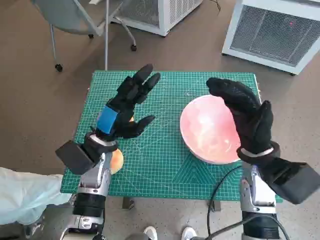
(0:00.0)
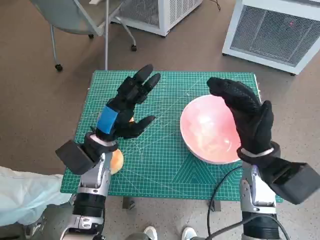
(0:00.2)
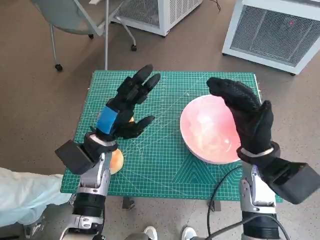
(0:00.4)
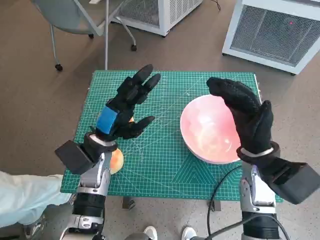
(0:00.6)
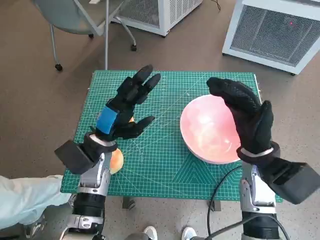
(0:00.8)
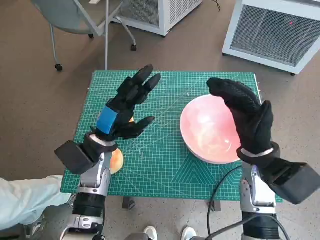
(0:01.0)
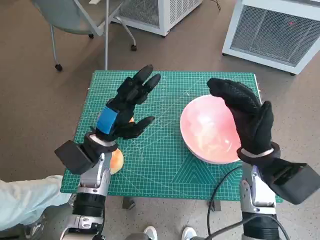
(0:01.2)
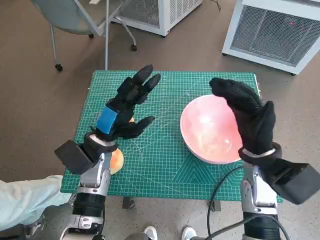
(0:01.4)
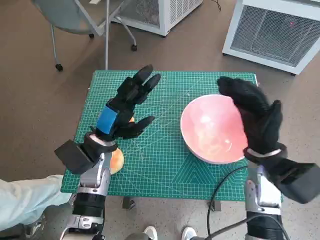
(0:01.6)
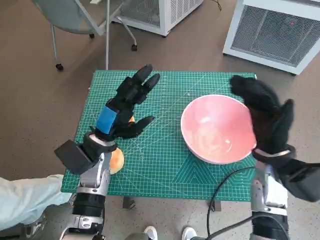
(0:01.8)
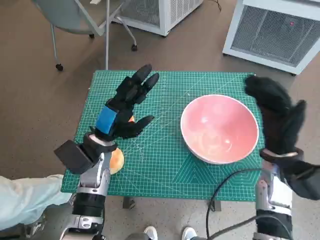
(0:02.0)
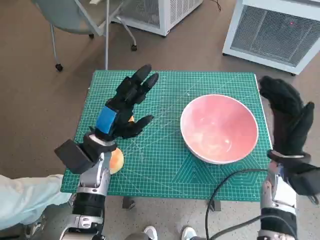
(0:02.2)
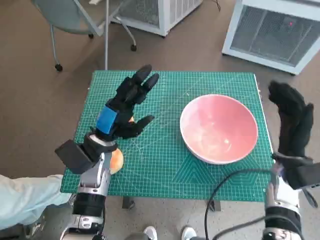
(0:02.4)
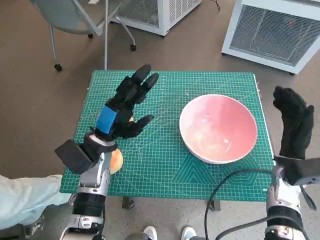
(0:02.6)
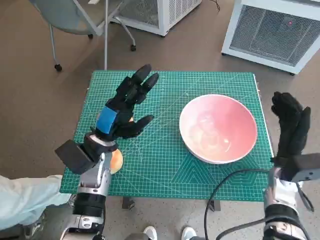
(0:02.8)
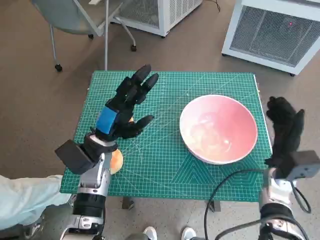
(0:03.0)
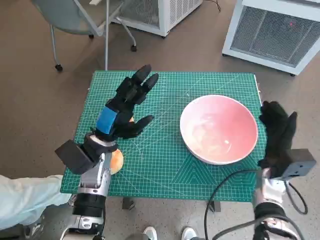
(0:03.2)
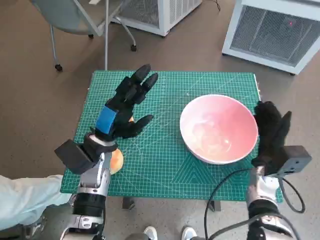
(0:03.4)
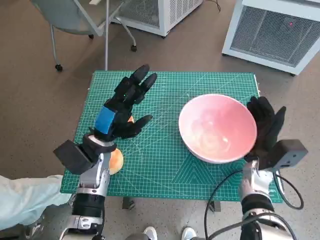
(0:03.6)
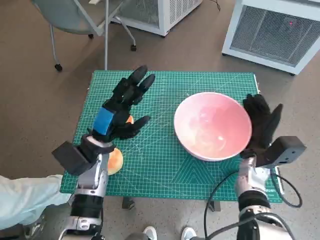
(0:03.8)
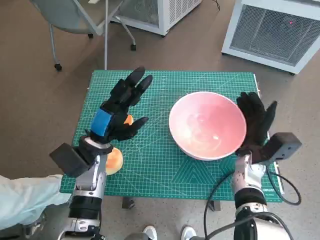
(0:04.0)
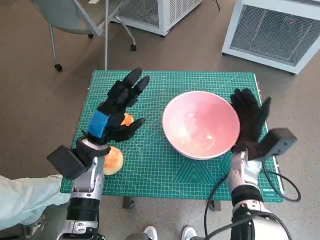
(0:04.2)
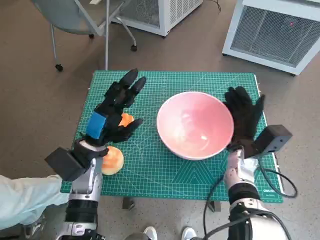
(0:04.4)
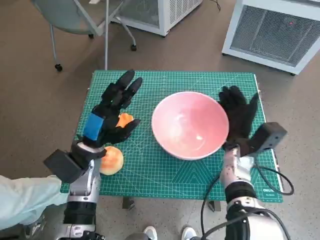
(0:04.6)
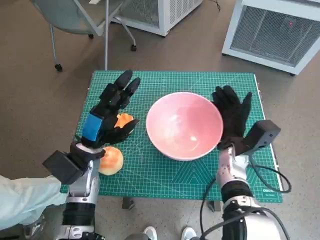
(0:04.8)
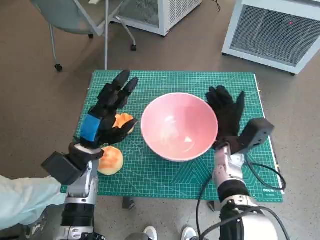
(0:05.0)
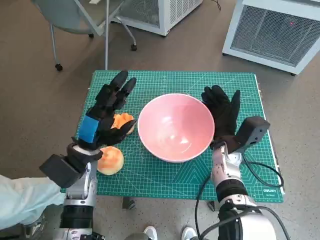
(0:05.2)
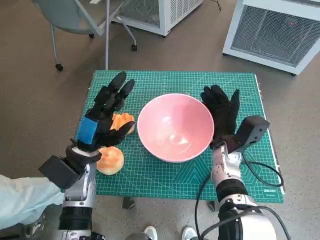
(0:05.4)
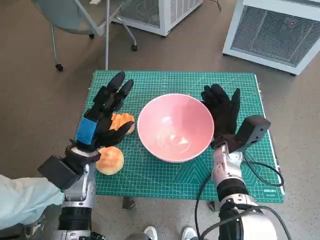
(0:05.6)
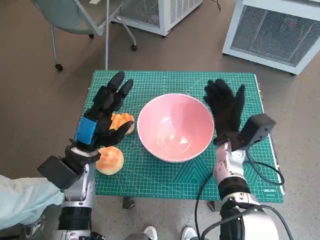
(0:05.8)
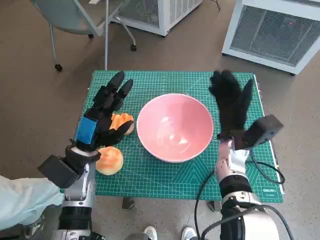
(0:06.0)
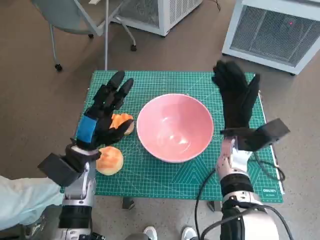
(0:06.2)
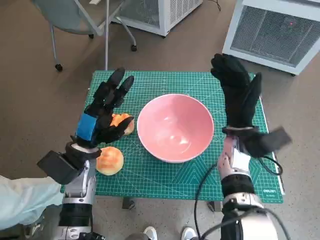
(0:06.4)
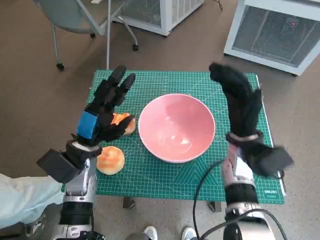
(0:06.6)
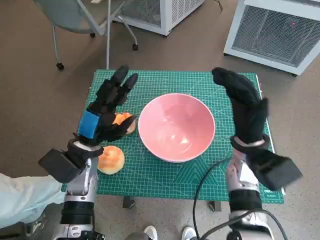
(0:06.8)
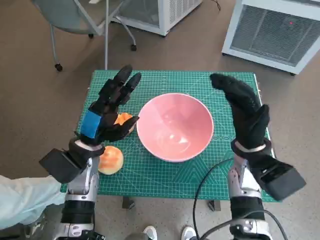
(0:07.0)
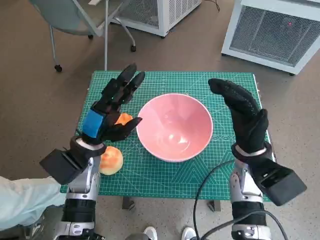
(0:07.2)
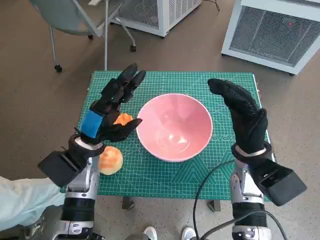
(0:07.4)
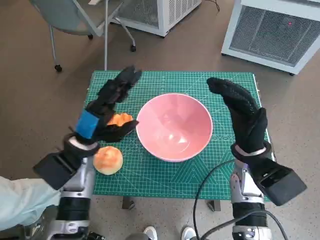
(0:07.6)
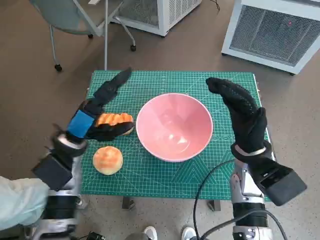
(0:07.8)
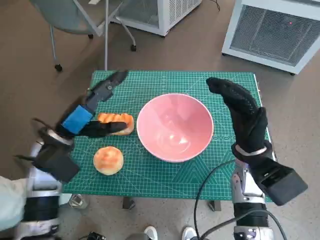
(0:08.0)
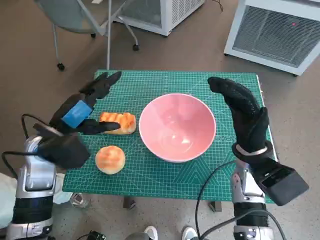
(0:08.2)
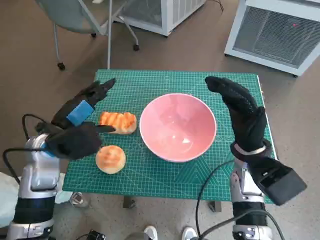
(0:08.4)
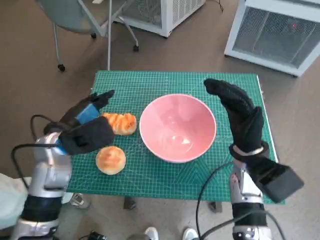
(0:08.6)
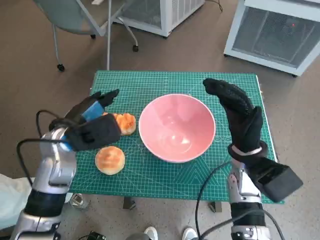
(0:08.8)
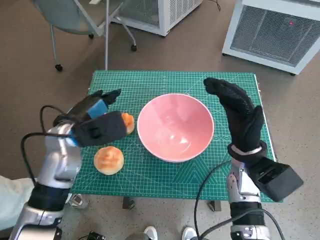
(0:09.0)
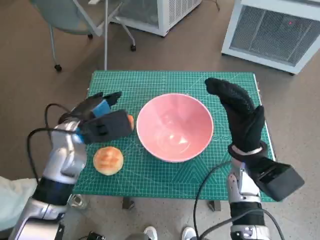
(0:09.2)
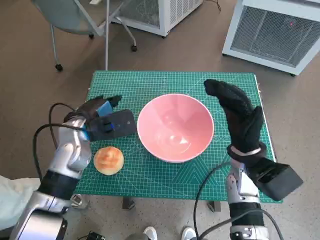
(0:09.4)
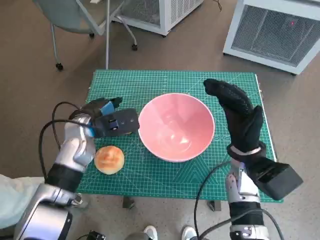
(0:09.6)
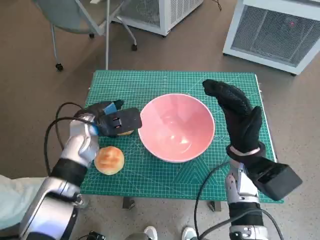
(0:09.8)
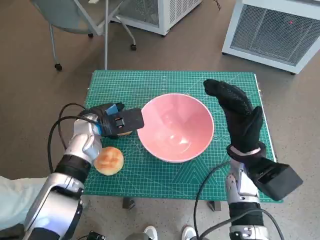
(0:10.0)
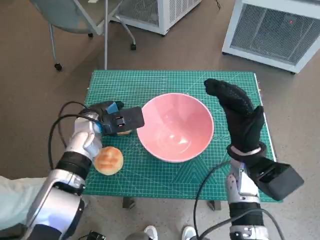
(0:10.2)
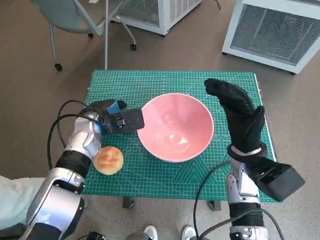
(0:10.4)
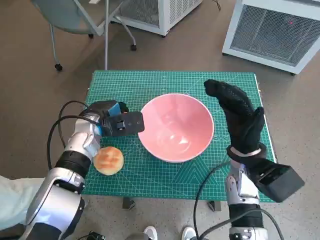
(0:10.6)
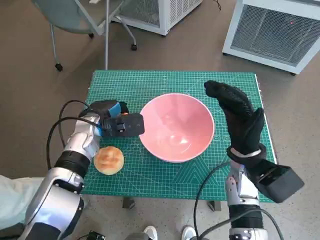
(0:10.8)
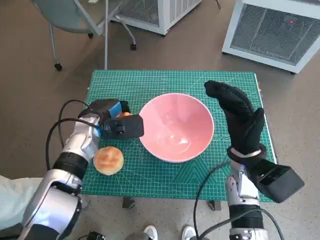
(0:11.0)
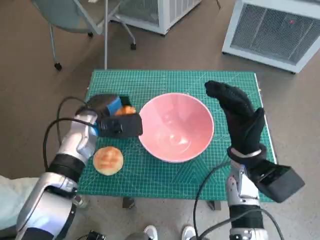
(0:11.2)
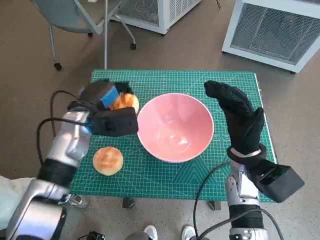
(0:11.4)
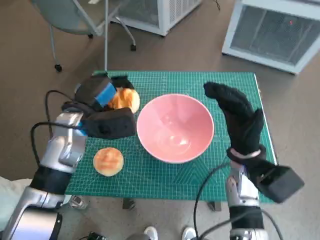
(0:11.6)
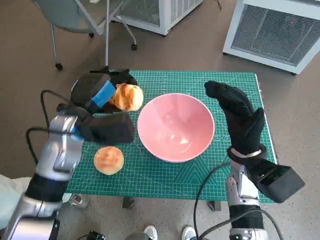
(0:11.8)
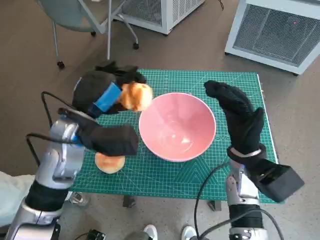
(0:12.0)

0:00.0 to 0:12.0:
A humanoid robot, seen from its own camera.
Task of the whole recording: Push the bowl into the center of the table and put the bread into the bowl.
Step, 0:00.0 to 0:05.8: Move the pink bowl to the center of table with right hand.
Step, 0:06.0 to 0:10.8: Grasp the long bread with left hand.
0:01.6 to 0:03.0: The right hand is displaced downward and to the right by roughly 10 cm.
0:03.0 to 0:04.4: The right hand moves to the left, about 5 cm.
0:06.0 to 0:07.6: The right hand moves roughly 5 cm.
0:09.0 to 0:10.4: The left hand is displaced forward by some 5 cm.
0:10.4 to 0:12.0: The left hand heads upward and backward, covering roughly 10 cm.

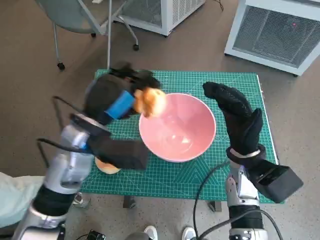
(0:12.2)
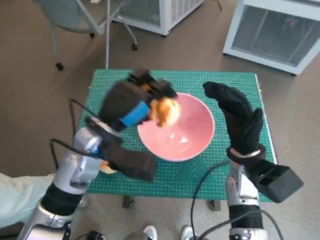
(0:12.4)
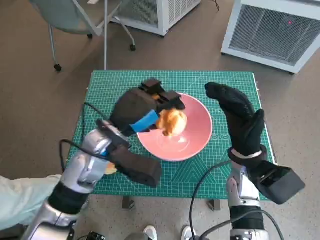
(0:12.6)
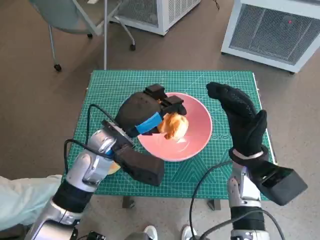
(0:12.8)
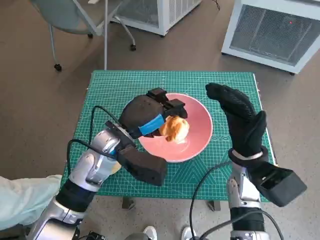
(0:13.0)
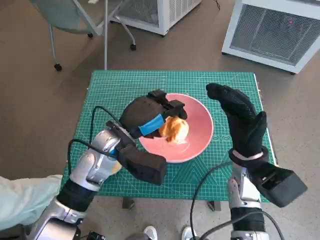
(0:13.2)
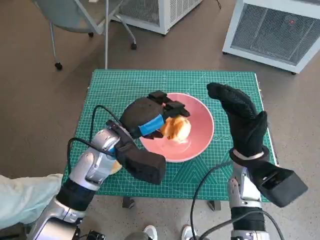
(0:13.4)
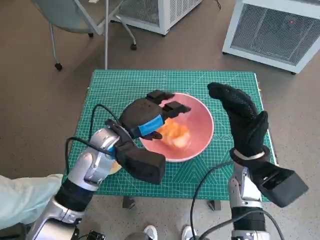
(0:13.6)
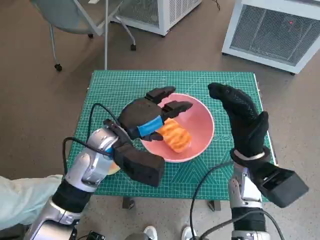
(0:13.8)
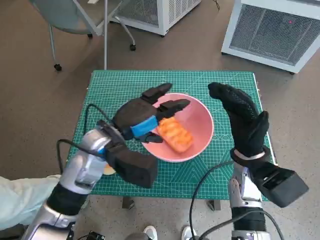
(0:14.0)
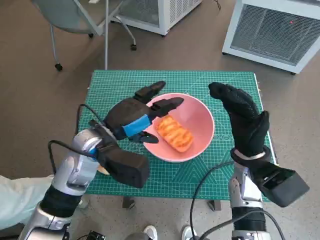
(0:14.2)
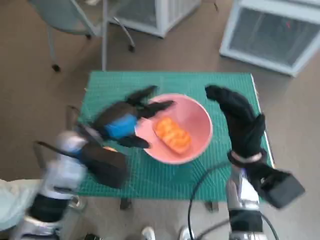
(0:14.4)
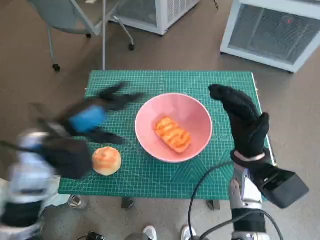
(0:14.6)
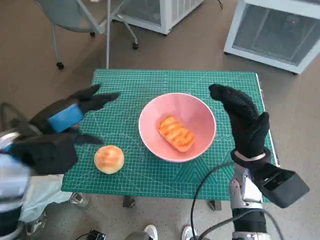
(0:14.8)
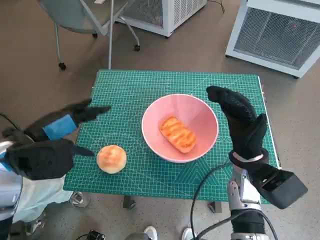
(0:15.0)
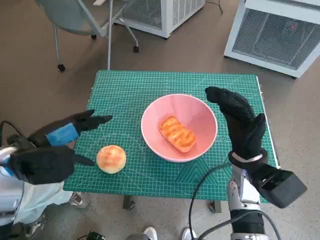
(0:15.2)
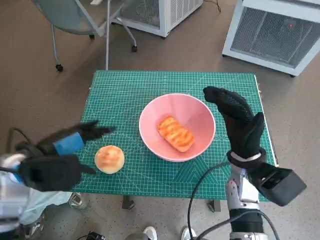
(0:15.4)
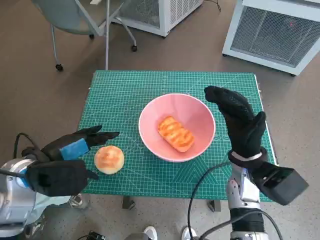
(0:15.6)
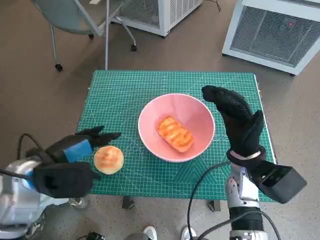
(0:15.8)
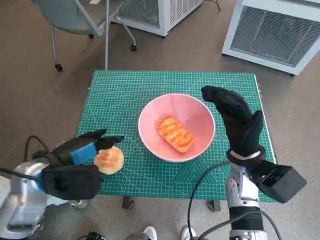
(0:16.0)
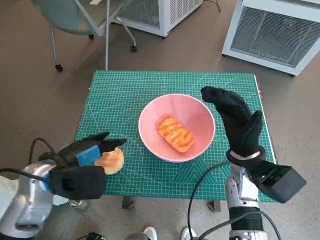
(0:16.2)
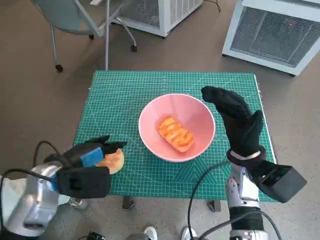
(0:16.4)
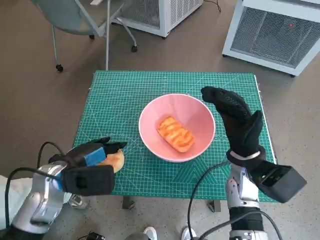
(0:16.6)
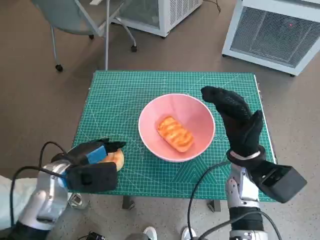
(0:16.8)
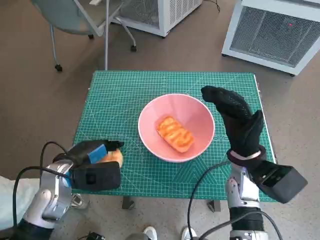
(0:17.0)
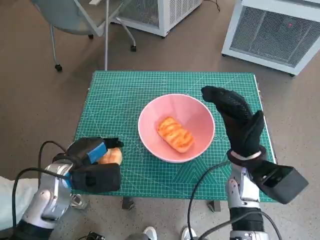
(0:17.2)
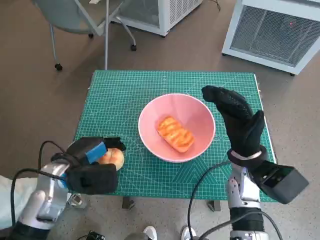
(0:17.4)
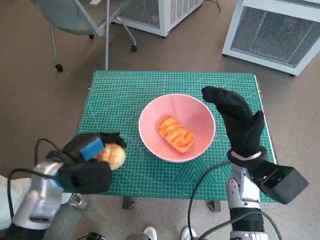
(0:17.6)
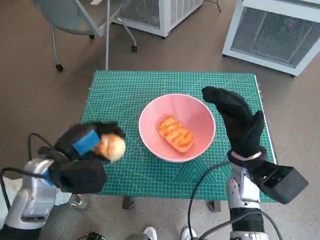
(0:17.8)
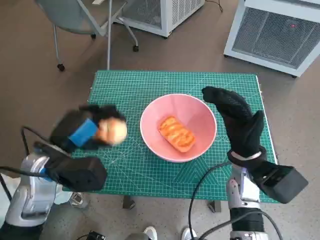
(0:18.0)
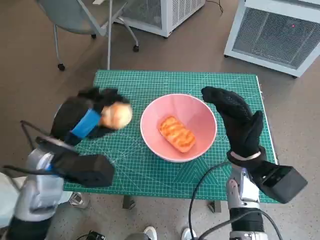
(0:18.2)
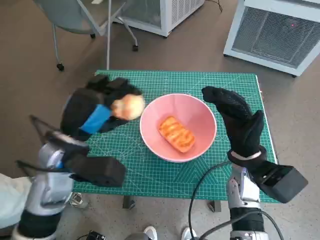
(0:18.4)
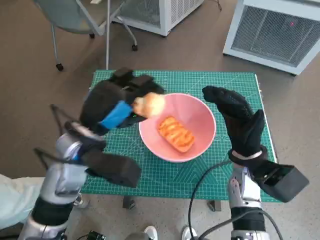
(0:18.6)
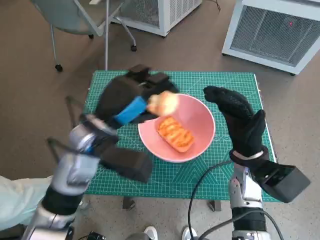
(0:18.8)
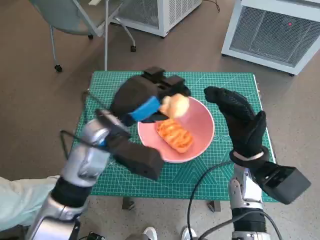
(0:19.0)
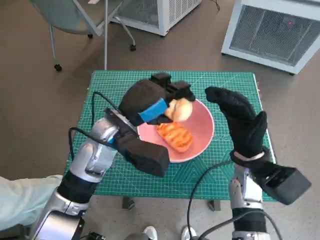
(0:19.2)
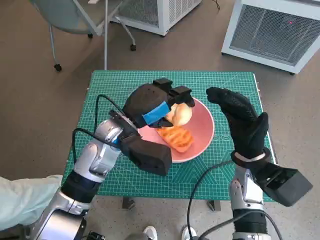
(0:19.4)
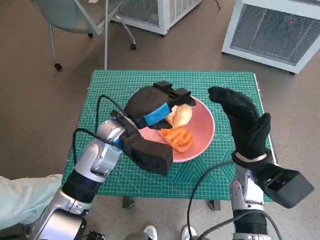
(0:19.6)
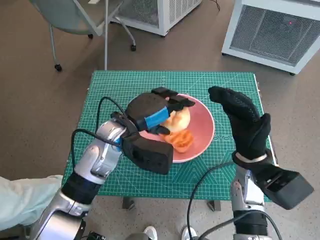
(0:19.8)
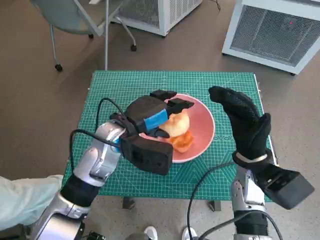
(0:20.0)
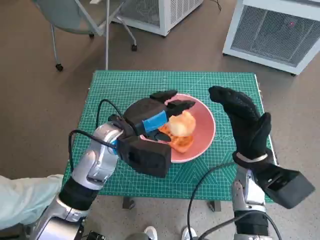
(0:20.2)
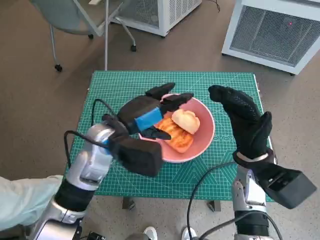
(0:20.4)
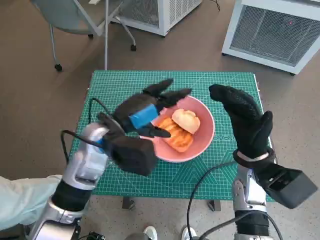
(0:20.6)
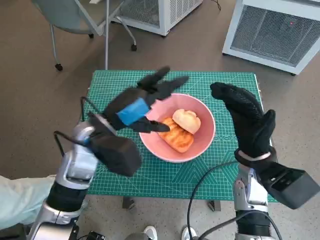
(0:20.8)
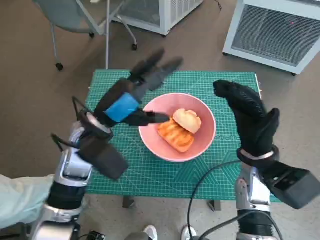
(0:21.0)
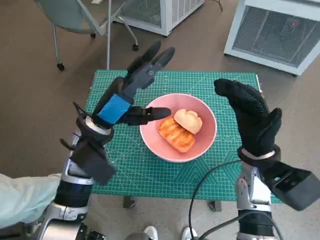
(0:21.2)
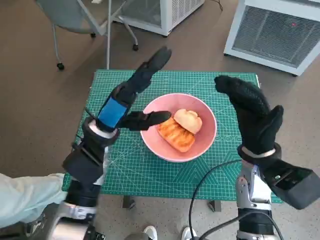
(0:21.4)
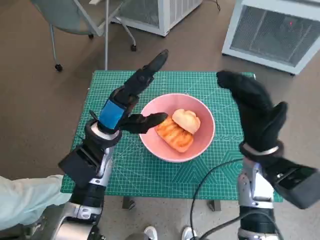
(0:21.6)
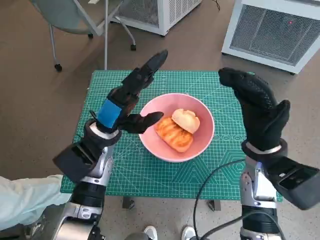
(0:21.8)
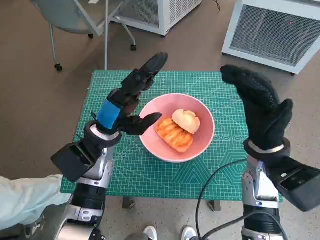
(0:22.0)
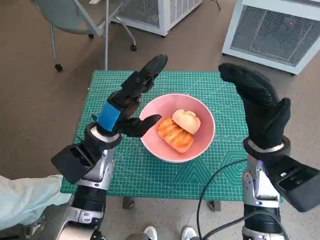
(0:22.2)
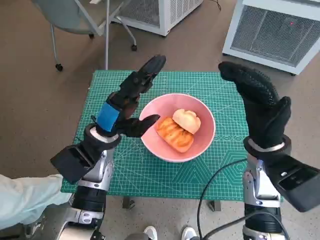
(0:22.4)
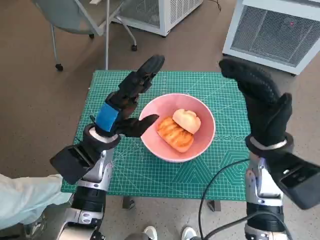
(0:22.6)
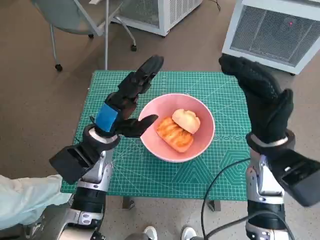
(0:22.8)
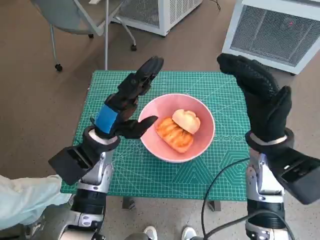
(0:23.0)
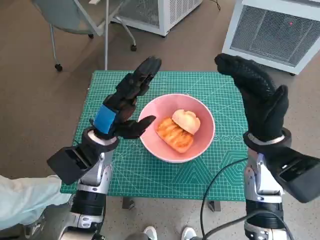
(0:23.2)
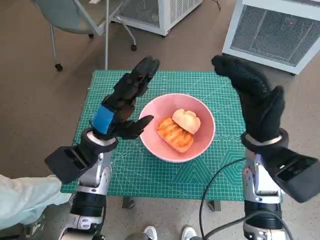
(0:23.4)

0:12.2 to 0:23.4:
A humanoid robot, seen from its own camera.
Task of the whole recording: Push the bowl into the center of the table and put the bread into the bowl.
Step, 0:12.2 to 0:13.8: Place the long bread in pink bowl with left hand.
Step, 0:14.0 to 0:17.0: Grasp the round bread with left hand.
Step, 0:17.2 to 0:20.0: Place the round bread in pink bowl with left hand.
0:12.2 to 0:13.8: The left hand changes place by roughly 5 cm.
0:13.8 to 0:15.4: The left hand travels to the left and backward by about 15 cm.
0:15.4 to 0:17.0: The left hand heads downward, covering some 10 cm.
0:17.0 to 0:18.6: The left hand shifts about 10 cm upward and to the right.
0:18.6 to 0:20.2: The left hand moves to the right, roughly 5 cm.
0:21.8 to 0:23.4: The hands stay close to where they were, moving slightly.
